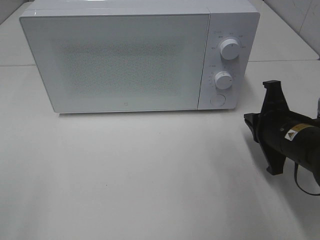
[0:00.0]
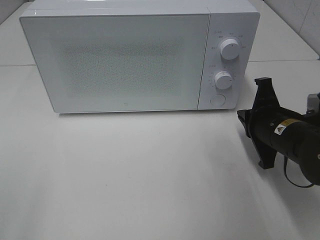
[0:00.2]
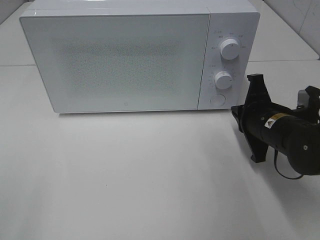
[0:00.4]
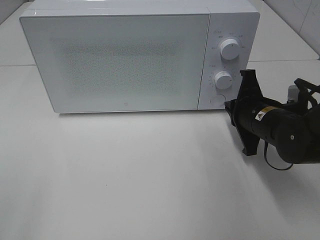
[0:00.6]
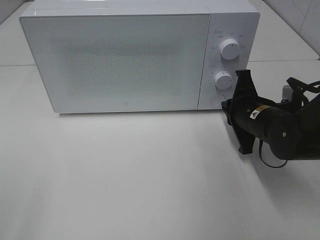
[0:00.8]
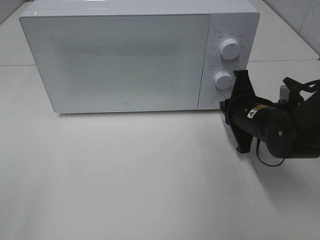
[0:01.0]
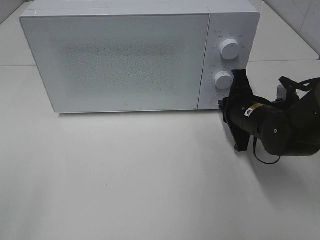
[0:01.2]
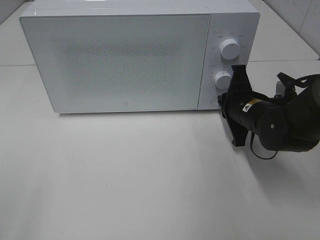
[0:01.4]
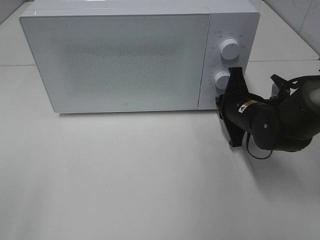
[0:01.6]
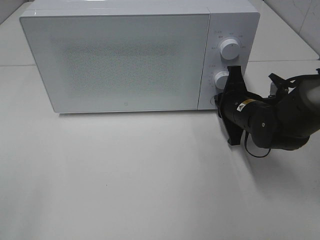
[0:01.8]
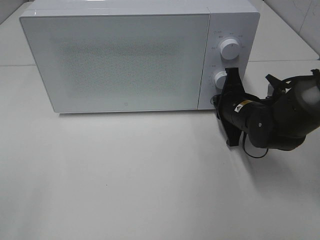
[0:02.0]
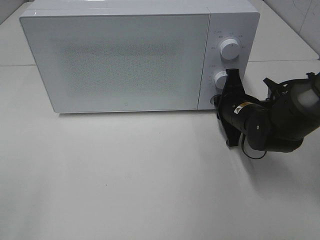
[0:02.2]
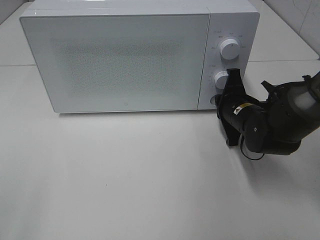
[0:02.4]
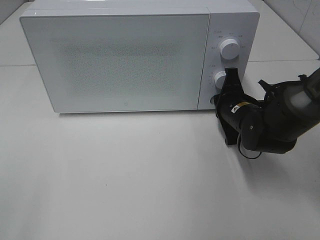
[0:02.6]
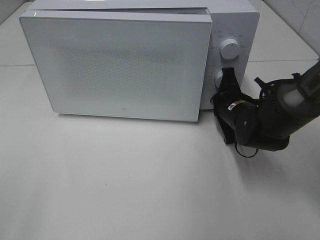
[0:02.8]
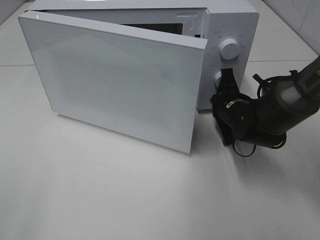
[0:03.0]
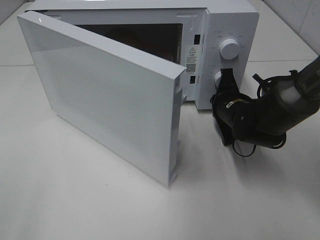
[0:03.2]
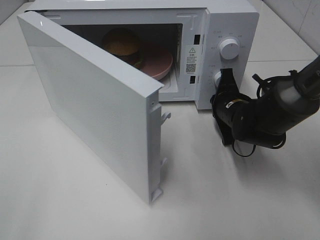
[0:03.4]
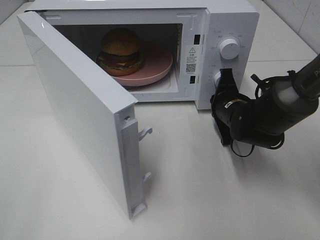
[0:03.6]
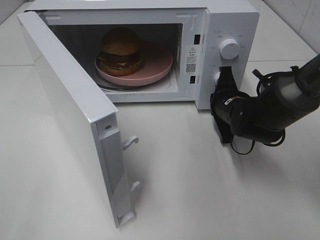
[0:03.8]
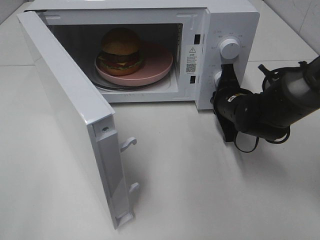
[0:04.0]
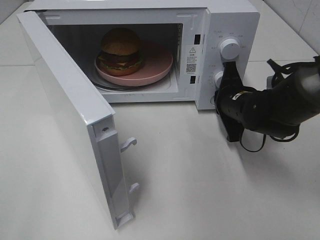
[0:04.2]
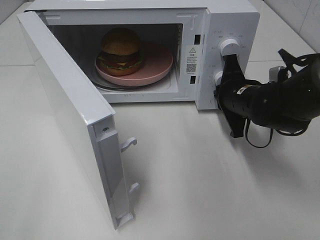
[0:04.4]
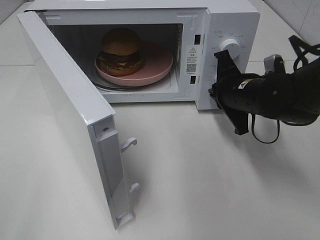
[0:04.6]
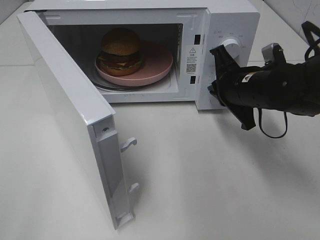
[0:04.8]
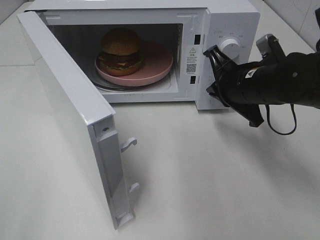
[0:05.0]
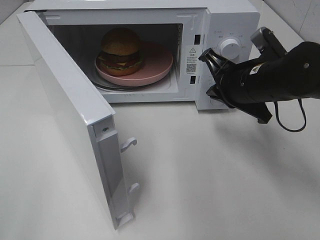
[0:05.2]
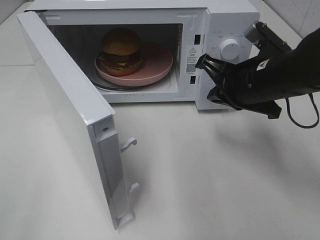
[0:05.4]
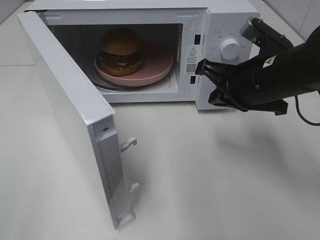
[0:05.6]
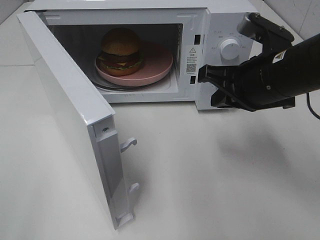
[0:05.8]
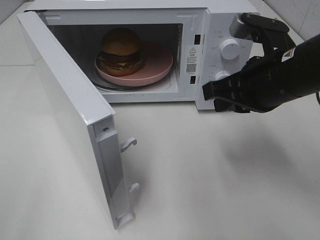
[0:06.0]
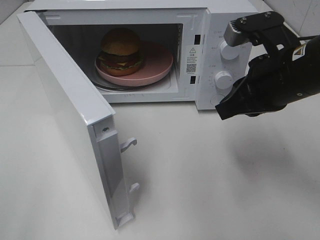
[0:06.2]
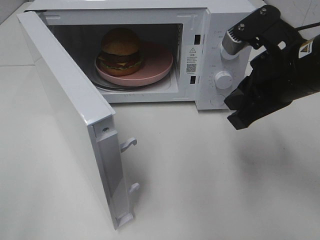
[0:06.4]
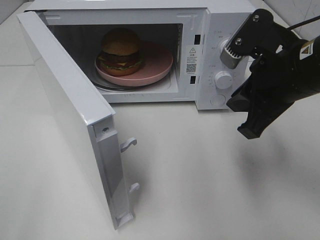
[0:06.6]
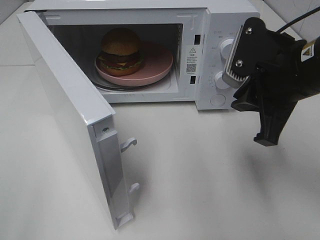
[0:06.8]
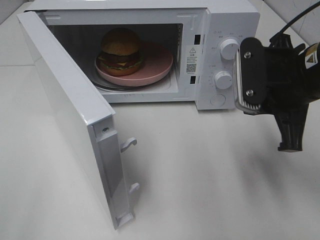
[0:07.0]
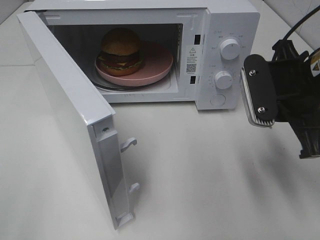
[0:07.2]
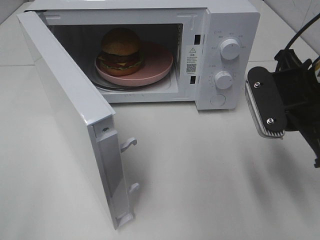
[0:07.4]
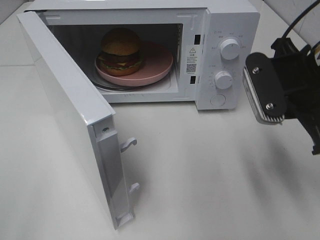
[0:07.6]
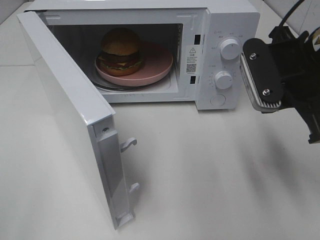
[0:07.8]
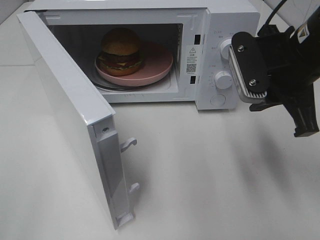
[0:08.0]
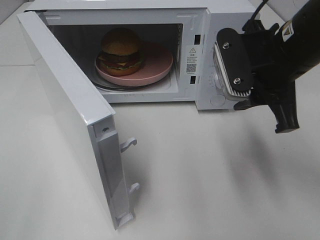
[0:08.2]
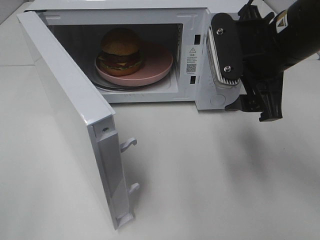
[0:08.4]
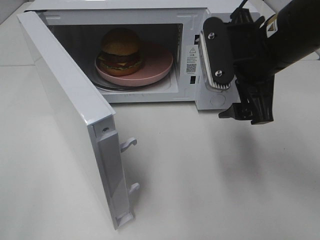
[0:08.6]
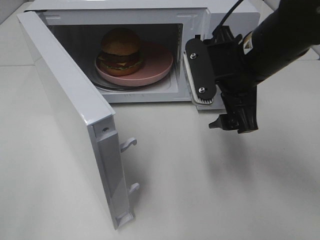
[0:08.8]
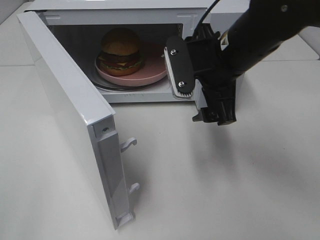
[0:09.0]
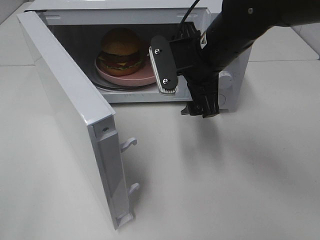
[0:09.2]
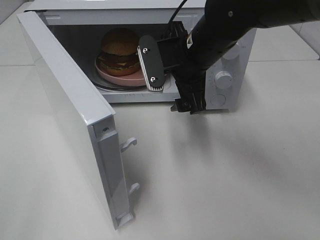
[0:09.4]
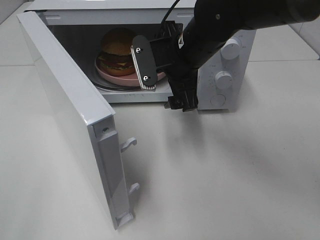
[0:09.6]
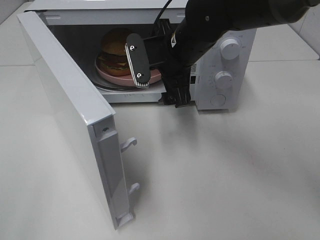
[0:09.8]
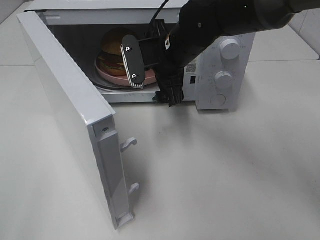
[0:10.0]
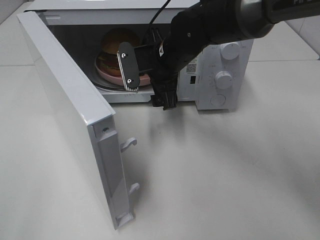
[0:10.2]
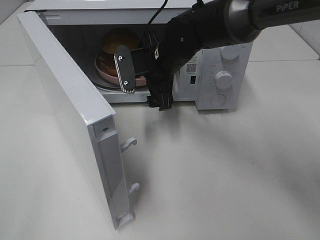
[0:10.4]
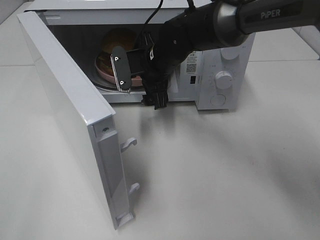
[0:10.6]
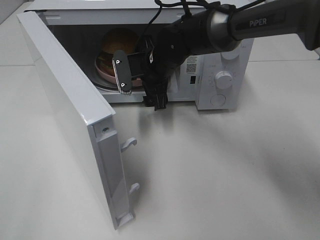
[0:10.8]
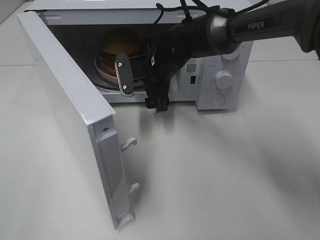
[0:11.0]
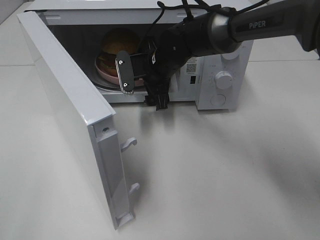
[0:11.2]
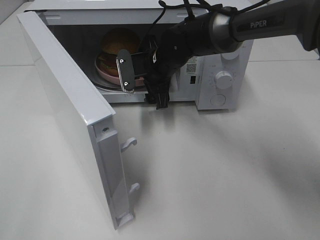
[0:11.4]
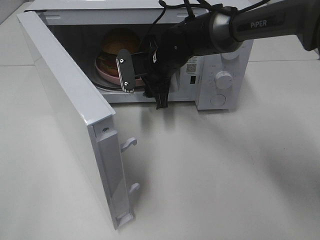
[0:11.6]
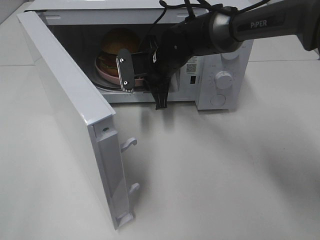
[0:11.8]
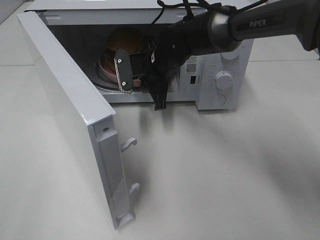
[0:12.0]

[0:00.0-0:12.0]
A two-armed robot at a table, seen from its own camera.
Task of the whole recording: Heat the burger.
Step, 0:00.0 to 0:04.2: Right hand: press the switch.
Step, 0:04.4 to 0:12.0: Right hand: grab the plate with the hamburger.
0:00.0 to 0:01.6: The right gripper travels forward by some 10 cm.
0:01.6 to 0:03.0: The grippers move only a little.
0:04.4 to 0:06.0: The right gripper goes some 15 cm upward and backward.
0:07.6 to 0:09.0: The right gripper heads to the left and forward, covering some 10 cm, and opens.
0:09.0 to 0:10.4: The right gripper moves forward, to the left and downward, roughly 15 cm.
0:10.4 to 0:12.0: The right gripper closes up.

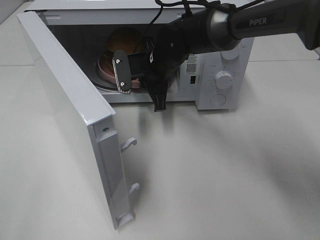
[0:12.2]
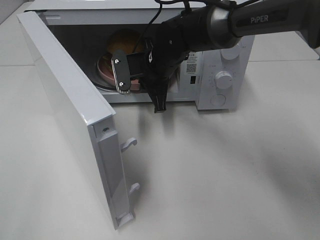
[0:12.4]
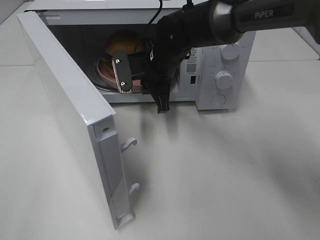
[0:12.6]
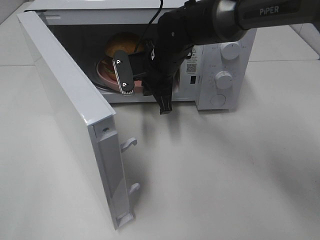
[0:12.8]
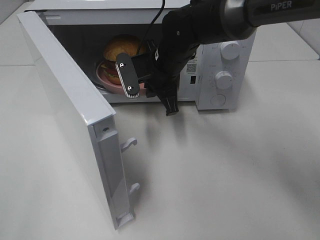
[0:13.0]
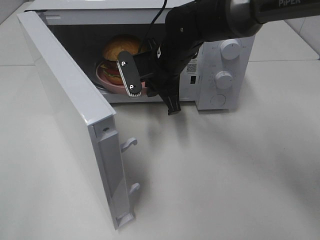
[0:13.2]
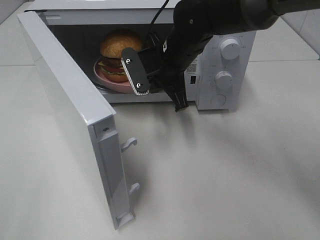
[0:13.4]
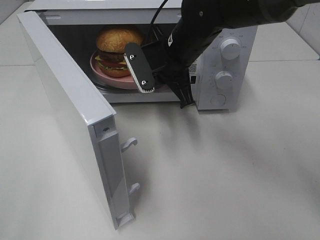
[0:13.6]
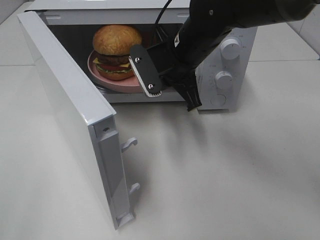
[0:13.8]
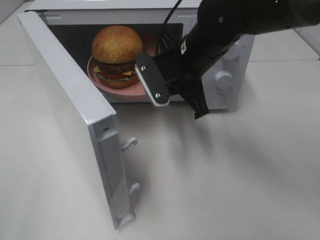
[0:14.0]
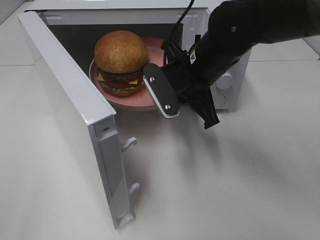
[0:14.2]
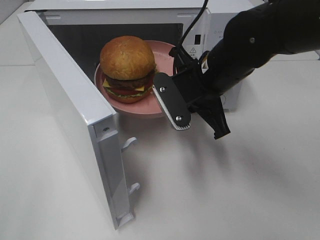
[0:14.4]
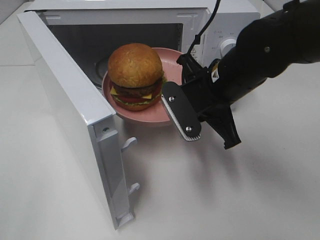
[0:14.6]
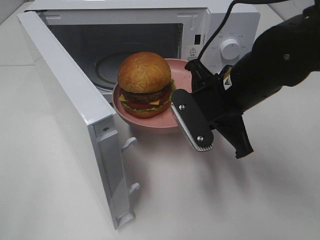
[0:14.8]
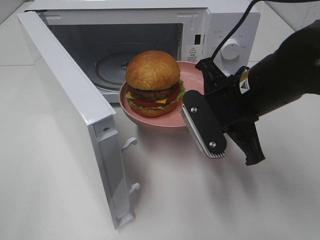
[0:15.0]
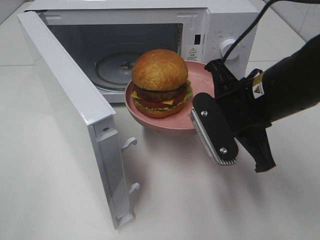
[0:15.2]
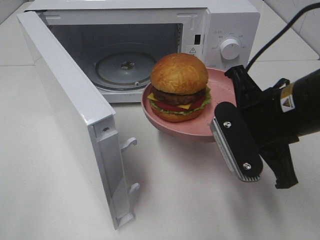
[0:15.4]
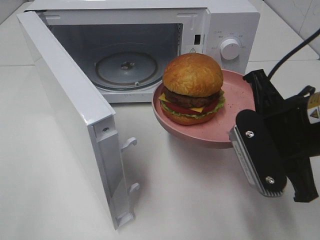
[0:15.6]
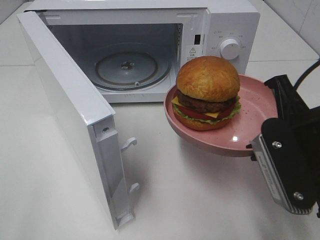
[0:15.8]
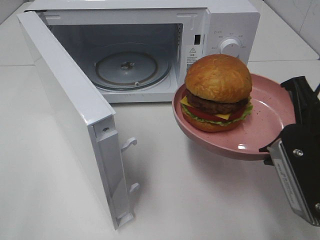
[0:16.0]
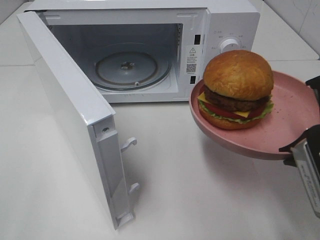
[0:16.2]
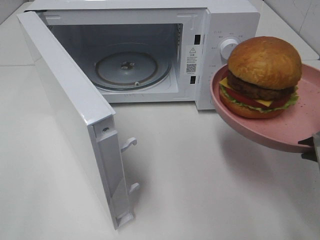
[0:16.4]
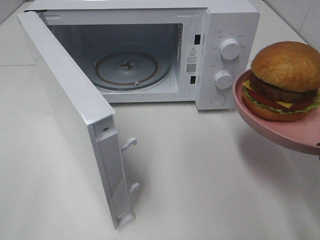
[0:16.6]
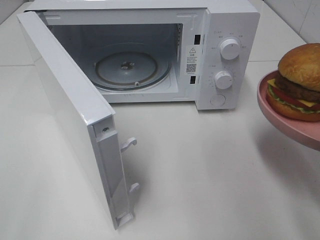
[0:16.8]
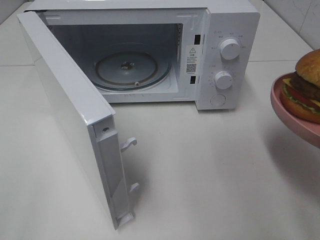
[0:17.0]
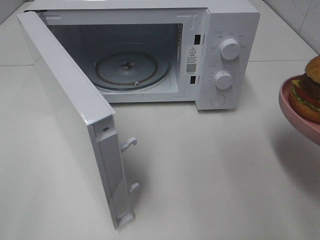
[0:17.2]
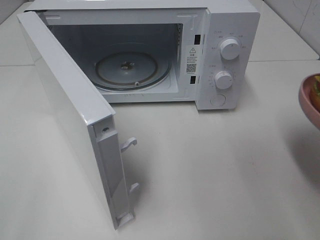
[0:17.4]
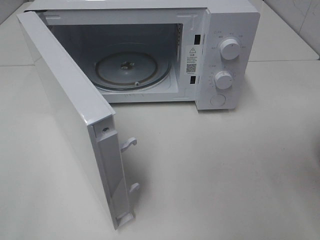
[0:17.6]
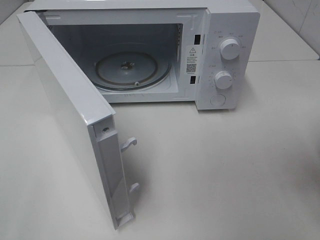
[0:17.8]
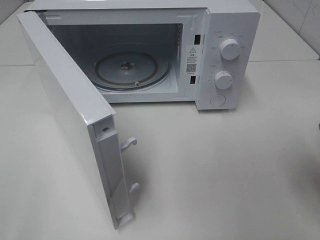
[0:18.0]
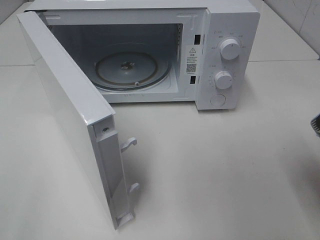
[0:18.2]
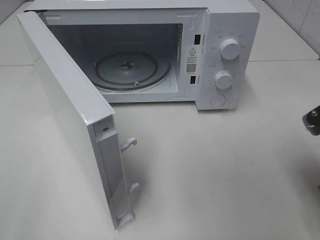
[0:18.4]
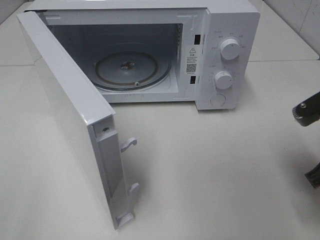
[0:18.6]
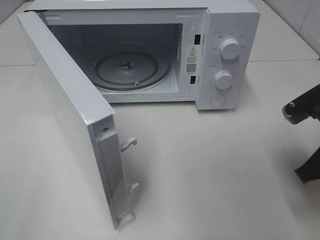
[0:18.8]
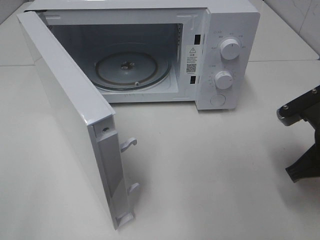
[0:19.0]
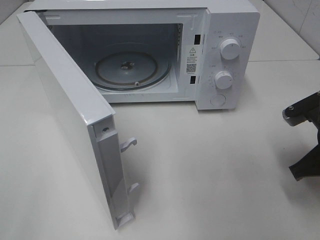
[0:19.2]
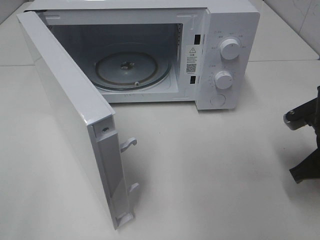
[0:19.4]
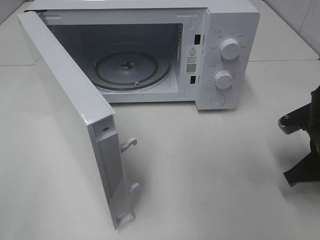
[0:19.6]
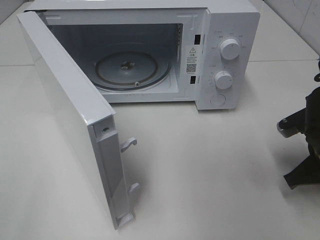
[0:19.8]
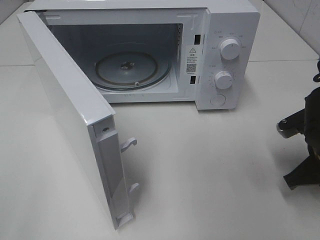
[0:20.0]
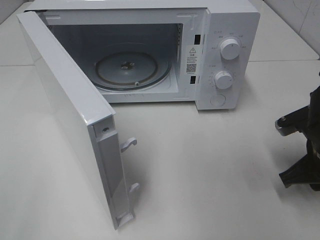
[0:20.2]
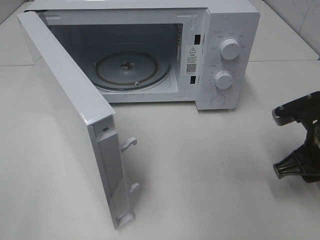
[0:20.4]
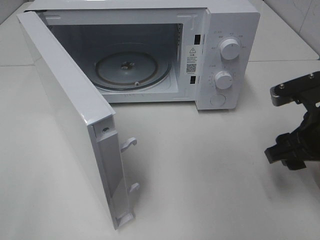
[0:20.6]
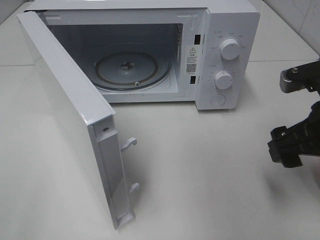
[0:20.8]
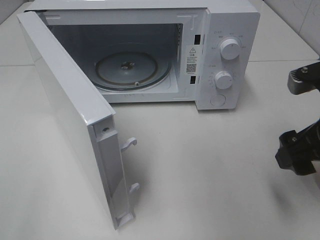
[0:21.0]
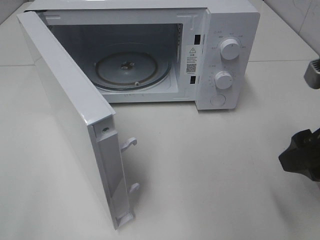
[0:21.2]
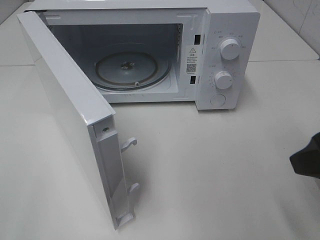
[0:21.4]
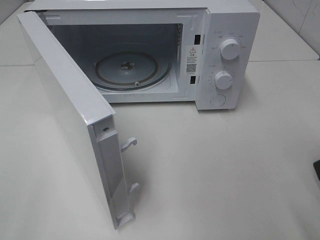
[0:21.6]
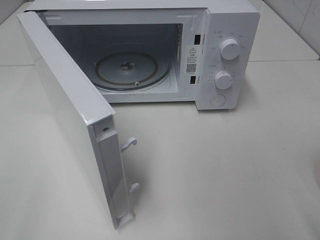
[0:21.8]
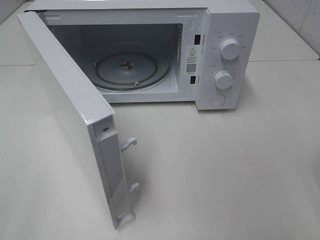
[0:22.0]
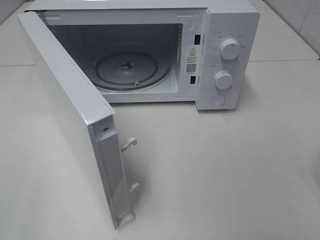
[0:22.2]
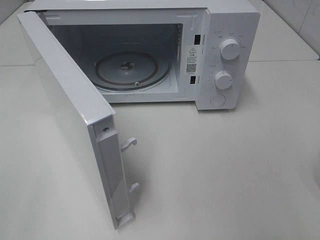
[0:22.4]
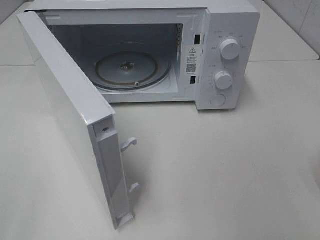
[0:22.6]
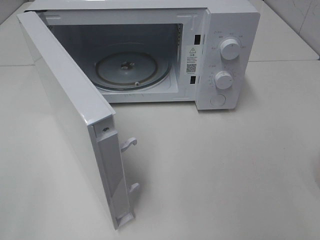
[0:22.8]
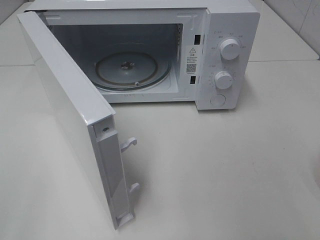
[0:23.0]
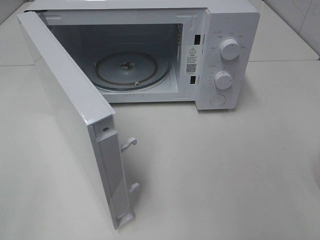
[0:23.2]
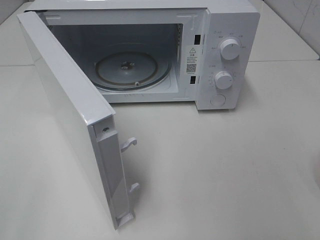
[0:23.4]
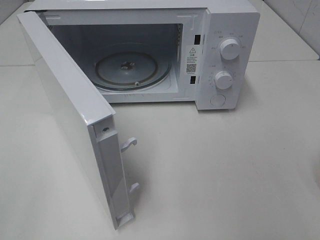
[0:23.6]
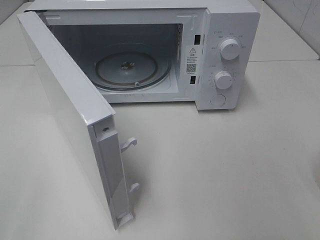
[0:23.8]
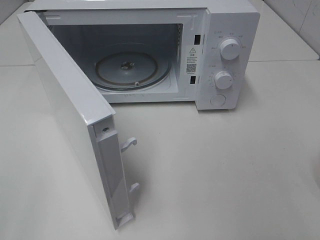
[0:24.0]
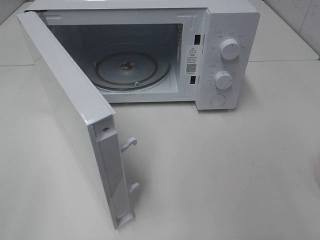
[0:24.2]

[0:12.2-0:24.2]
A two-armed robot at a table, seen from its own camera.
Task of the whole recording: Heat the burger.
Step, 0:12.2 to 0:20.0: Right hand: place the plate on the table.
0:12.2 to 0:13.8: The right gripper goes some 10 cm upward and backward.
0:13.8 to 0:15.2: The right gripper shifts approximately 15 cm backward and to the right.
0:15.2 to 0:16.6: The right gripper moves backward and to the right, some 15 cm.
0:16.6 to 0:18.2: The right gripper moves about 5 cm.
0:18.2 to 0:19.8: The right gripper heads downward and forward, covering about 10 cm.
0:19.8 to 0:21.2: The right gripper shifts some 15 cm upward and backward, and opens up.
0:21.2 to 0:22.6: The right gripper goes about 15 cm backward.
0:22.6 to 0:24.2: The two grippers keep their place.
